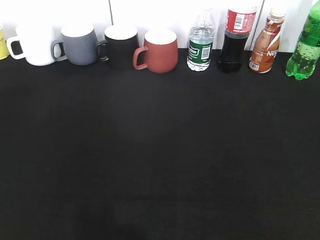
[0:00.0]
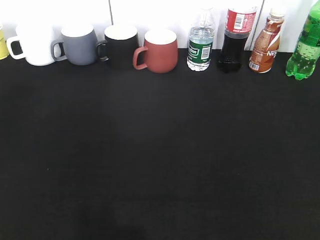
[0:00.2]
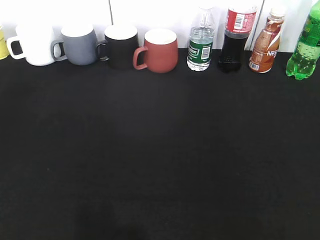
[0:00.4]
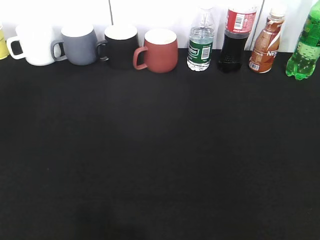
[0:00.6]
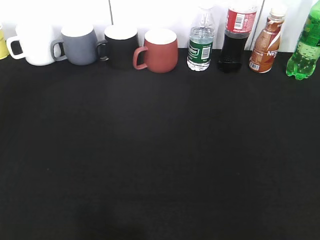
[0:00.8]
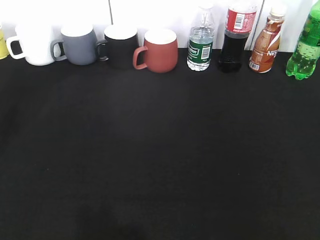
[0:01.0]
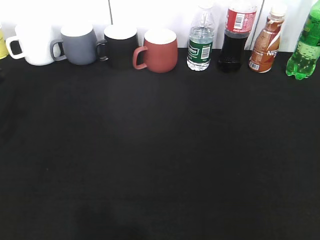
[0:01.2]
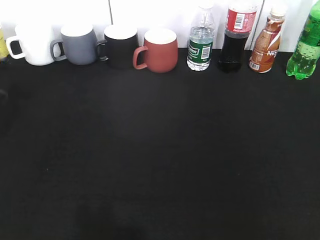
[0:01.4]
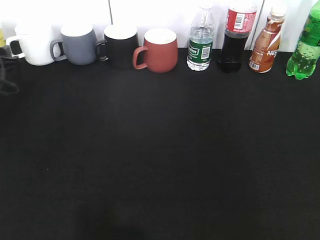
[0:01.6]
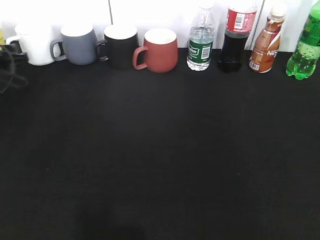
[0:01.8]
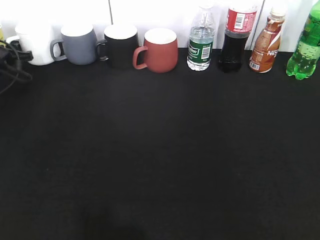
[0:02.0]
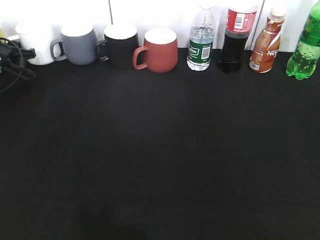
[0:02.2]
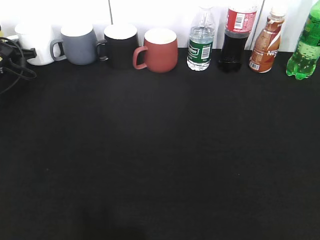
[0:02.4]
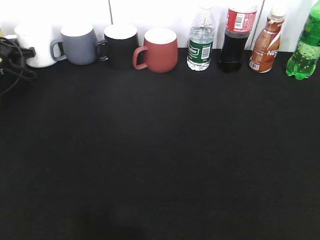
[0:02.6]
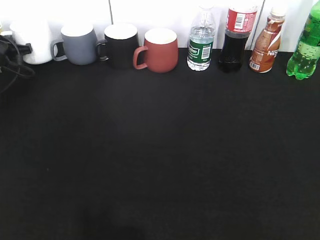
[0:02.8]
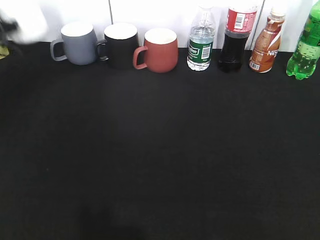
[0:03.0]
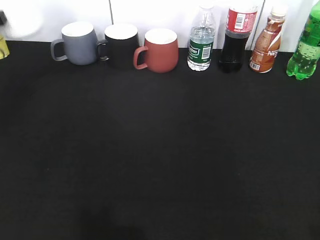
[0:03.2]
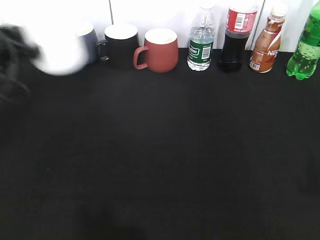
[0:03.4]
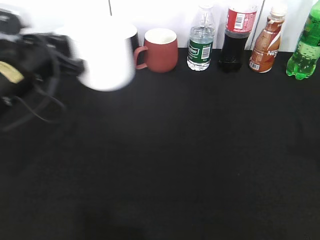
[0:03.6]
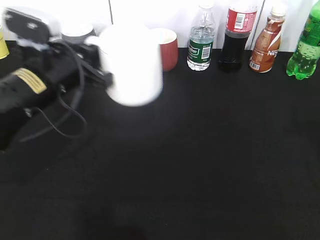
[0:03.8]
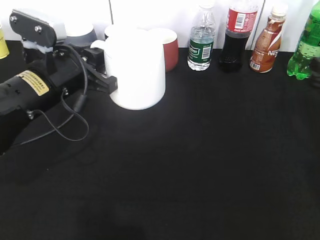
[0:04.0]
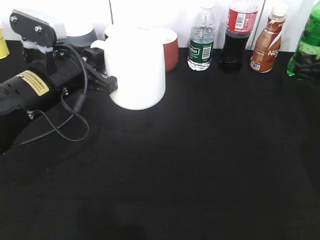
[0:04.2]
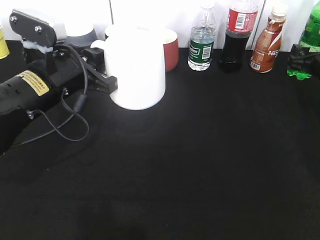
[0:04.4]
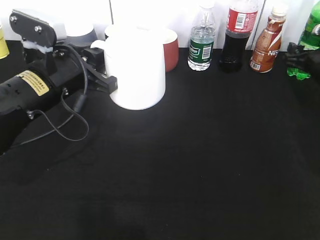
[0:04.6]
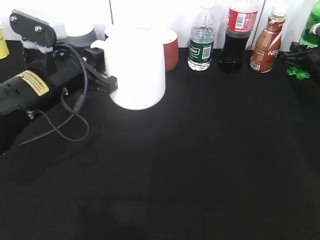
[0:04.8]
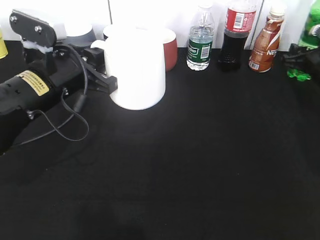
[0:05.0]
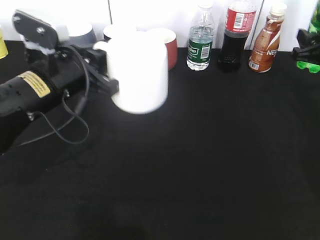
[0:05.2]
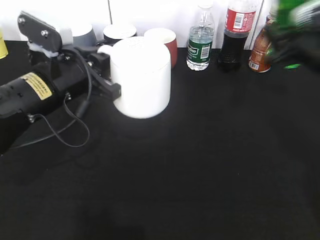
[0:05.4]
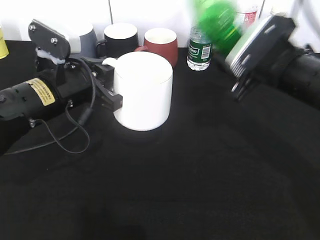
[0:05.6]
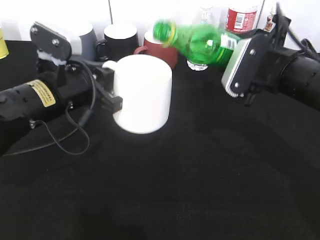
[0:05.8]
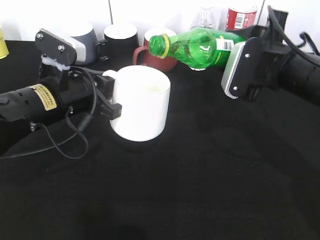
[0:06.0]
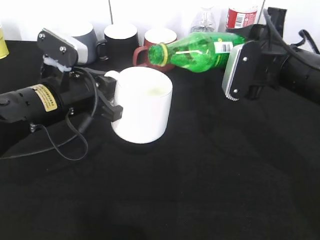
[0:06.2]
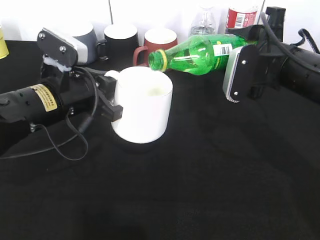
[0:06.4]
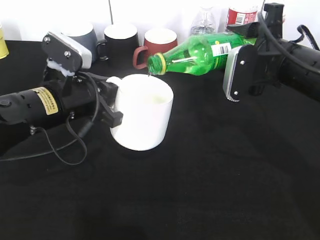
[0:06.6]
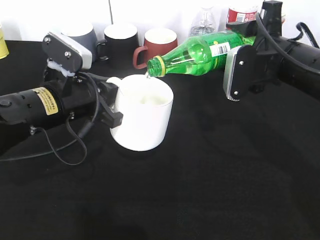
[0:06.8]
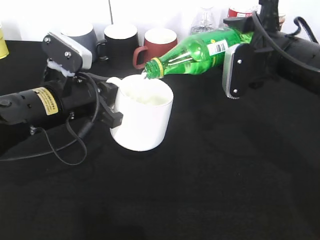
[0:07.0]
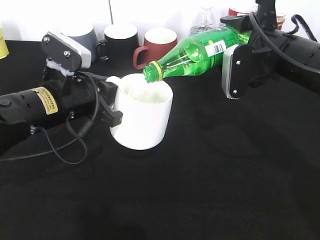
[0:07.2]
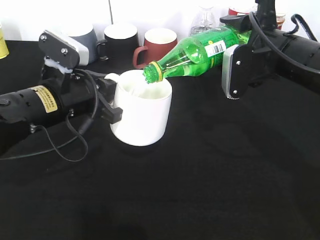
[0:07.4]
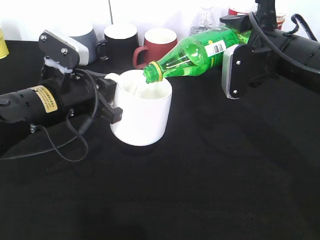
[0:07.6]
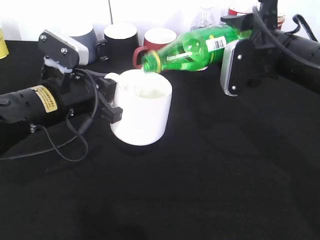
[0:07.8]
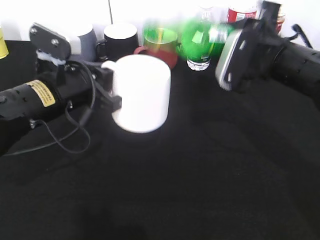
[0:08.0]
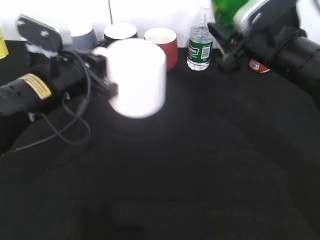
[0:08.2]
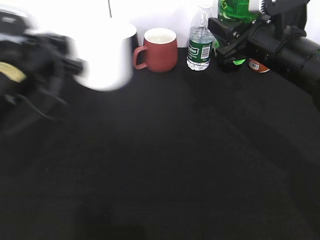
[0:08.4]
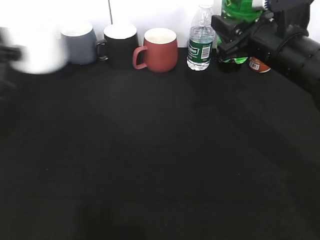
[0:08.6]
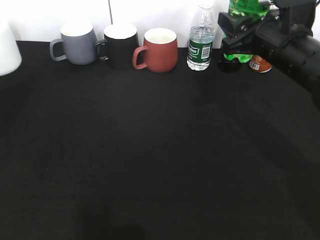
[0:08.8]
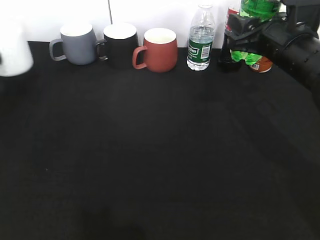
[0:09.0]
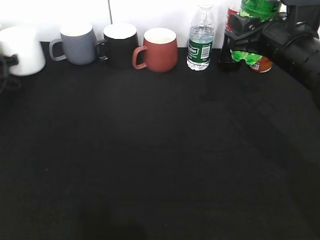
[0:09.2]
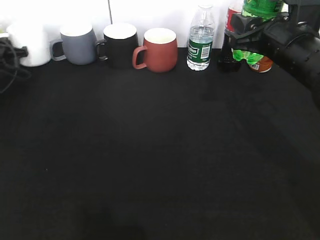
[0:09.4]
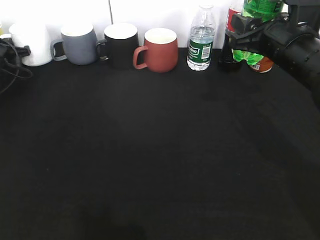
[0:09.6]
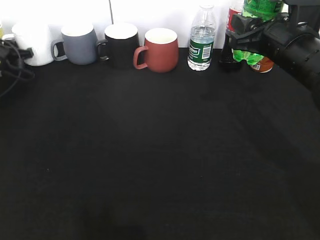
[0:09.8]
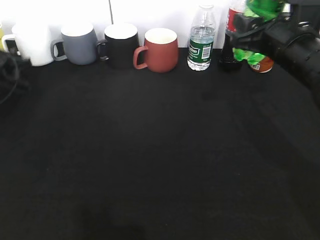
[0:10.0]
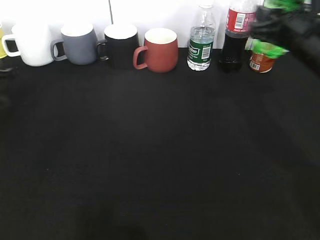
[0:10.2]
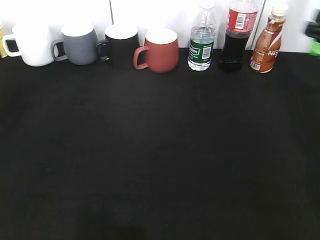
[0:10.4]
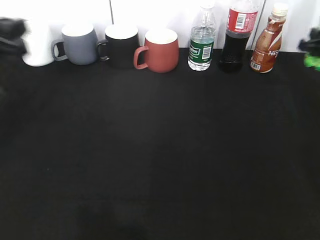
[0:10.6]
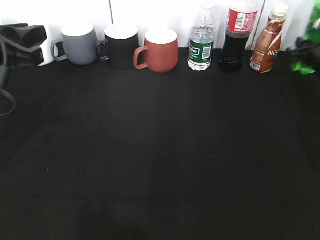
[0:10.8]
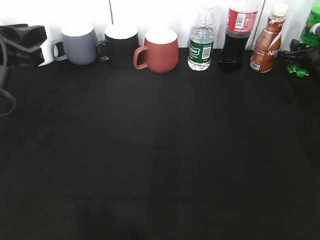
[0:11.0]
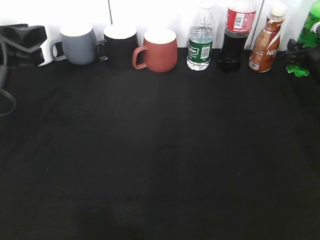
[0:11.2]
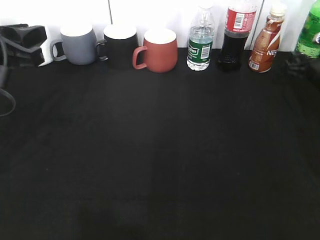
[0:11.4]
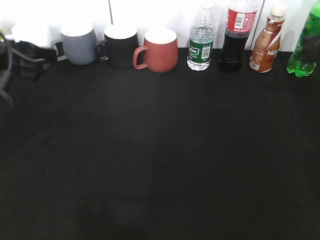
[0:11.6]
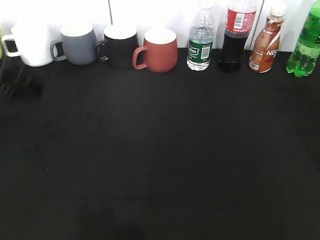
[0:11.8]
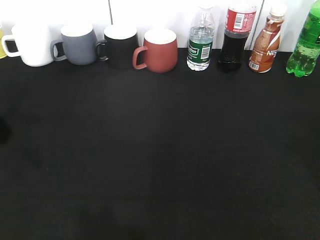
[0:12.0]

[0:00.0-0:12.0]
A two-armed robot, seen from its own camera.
Step, 2.6 to 3.8 s: Lift the white cup with left gripper.
Step, 5.0 to 7.8 s: Pour the sprite from bottle to cup with right gripper.
Step, 8.0 to 11.4 s: Place the sprite bottle on the table with right gripper.
0.0 to 1.6 s: The left gripper heads forward, covering approximately 40 cm.
1.6 to 3.0 s: The left gripper travels forward and upward by about 10 cm, and closes its fingers.
3.0 to 4.4 s: The left gripper goes roughly 25 cm to the right and backward. The right gripper is displaced forward by some 40 cm.
4.4 to 6.0 s: The right gripper heads to the left, backward and upward, covering about 20 cm, and closes up.
6.0 to 7.6 s: The grippers move only a little.
7.6 to 9.0 s: The left gripper is displaced to the left and forward by approximately 25 cm.
9.0 to 10.4 s: The right gripper goes some 10 cm to the right. Meanwhile the left gripper shifts approximately 15 cm backward, upward and to the right, and opens its fingers.
10.4 to 12.0 s: The left gripper travels backward, upward and to the right by about 10 cm, and opens, while the right gripper moves backward and upward, some 20 cm, and opens.

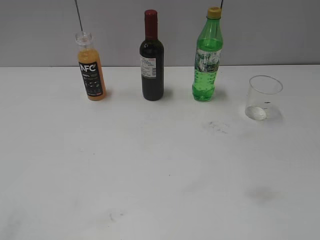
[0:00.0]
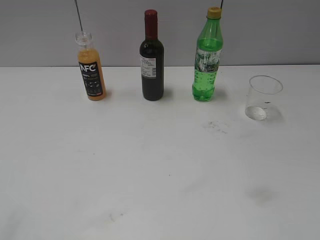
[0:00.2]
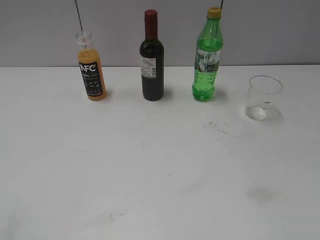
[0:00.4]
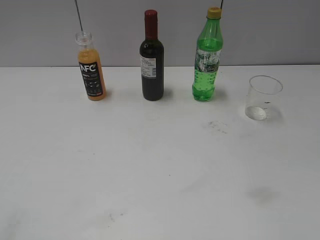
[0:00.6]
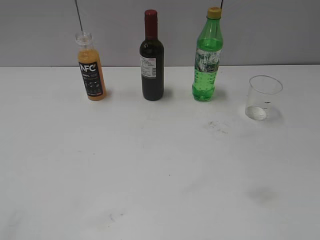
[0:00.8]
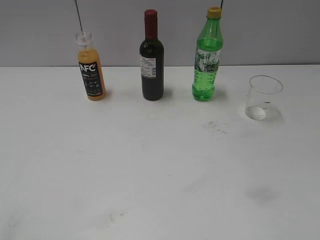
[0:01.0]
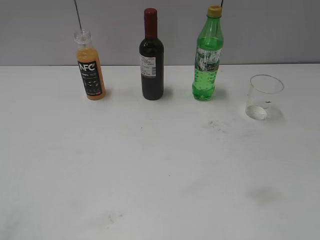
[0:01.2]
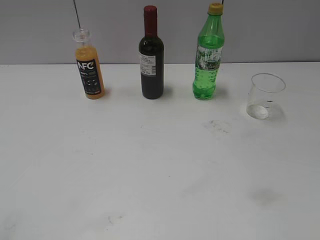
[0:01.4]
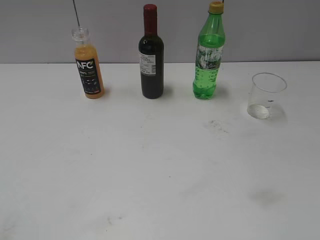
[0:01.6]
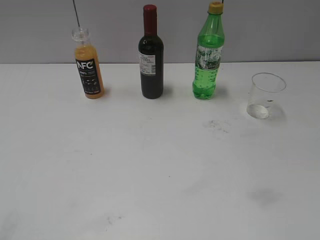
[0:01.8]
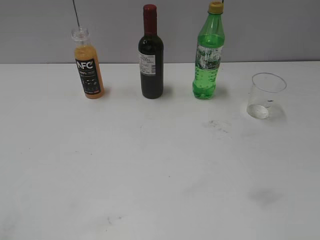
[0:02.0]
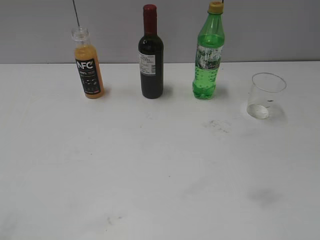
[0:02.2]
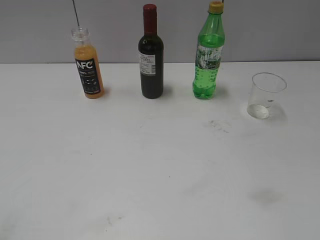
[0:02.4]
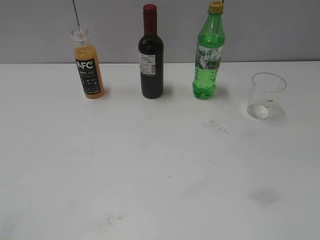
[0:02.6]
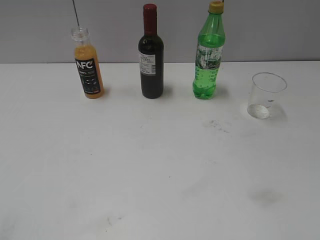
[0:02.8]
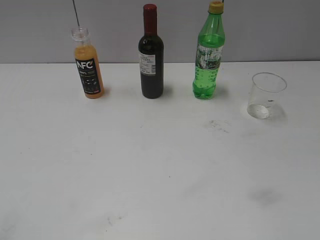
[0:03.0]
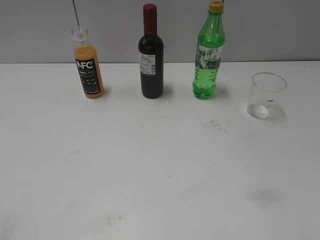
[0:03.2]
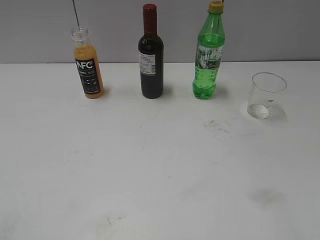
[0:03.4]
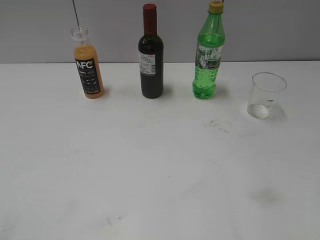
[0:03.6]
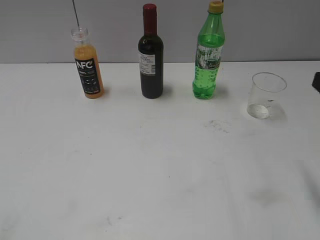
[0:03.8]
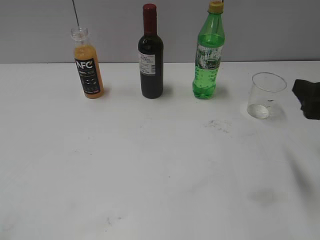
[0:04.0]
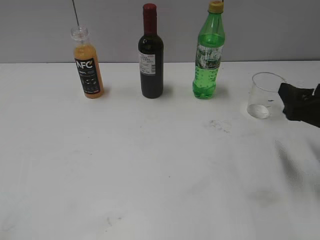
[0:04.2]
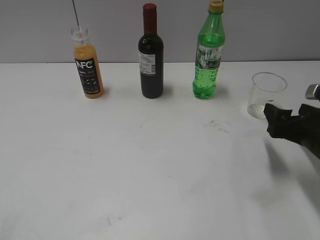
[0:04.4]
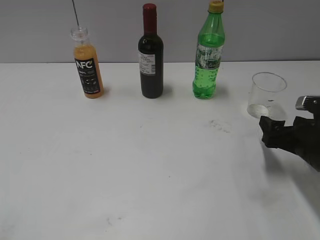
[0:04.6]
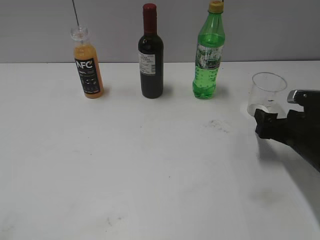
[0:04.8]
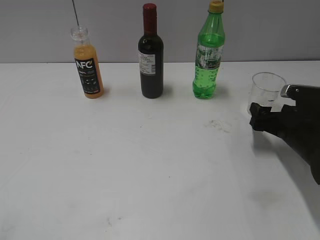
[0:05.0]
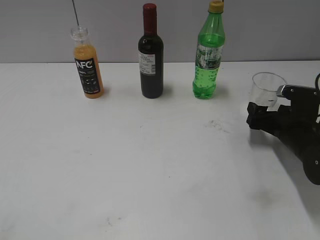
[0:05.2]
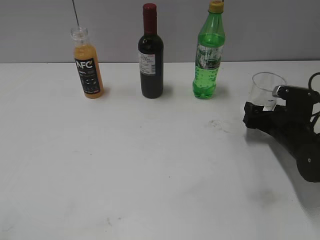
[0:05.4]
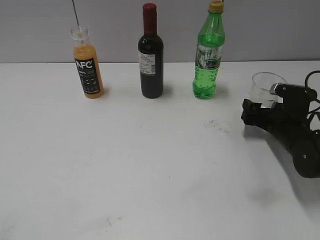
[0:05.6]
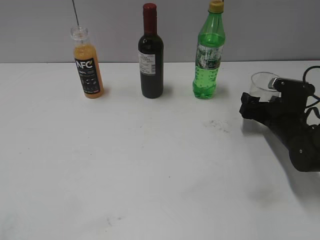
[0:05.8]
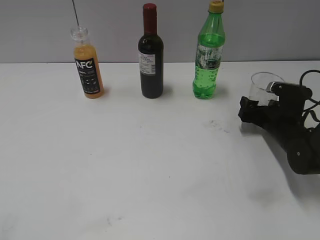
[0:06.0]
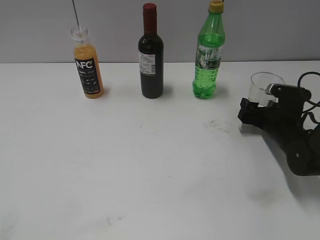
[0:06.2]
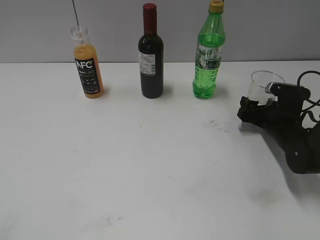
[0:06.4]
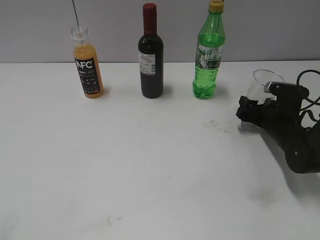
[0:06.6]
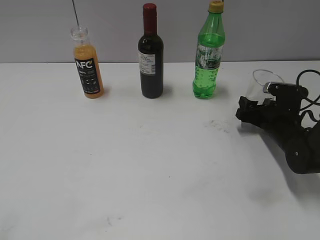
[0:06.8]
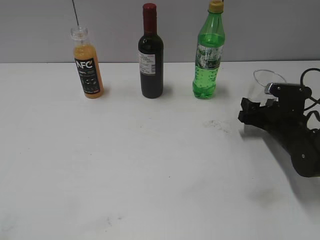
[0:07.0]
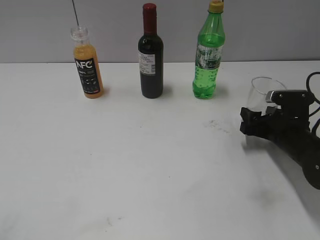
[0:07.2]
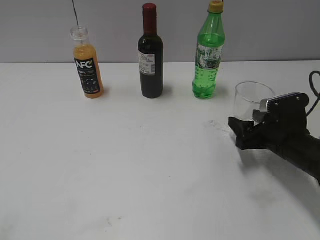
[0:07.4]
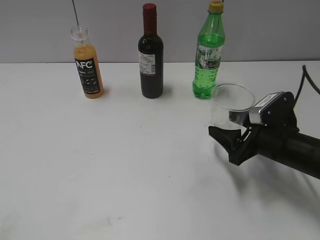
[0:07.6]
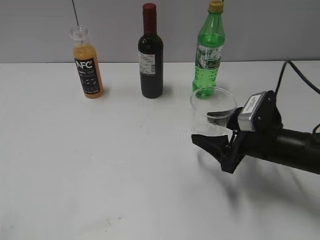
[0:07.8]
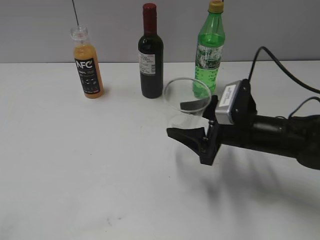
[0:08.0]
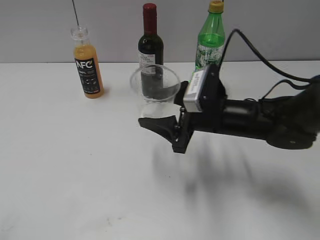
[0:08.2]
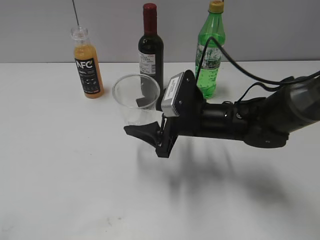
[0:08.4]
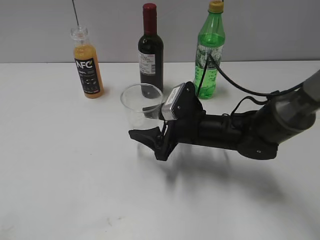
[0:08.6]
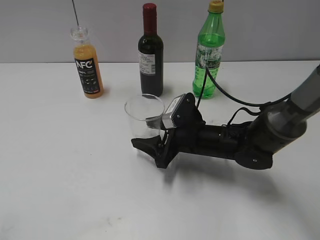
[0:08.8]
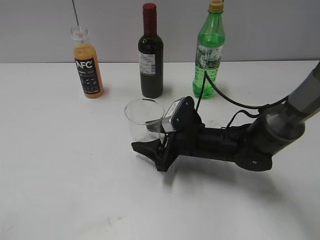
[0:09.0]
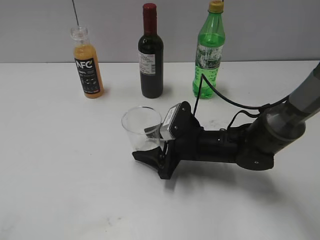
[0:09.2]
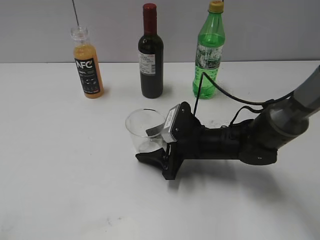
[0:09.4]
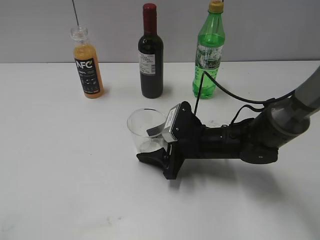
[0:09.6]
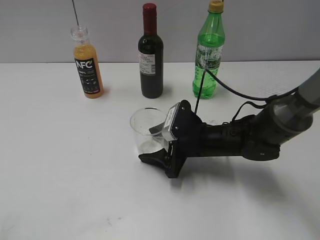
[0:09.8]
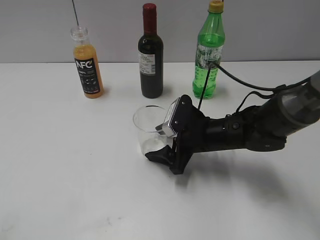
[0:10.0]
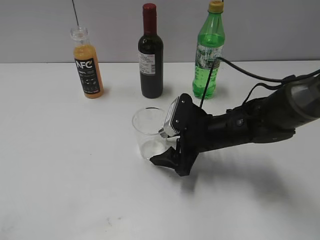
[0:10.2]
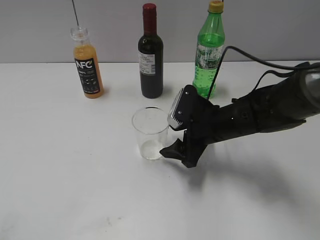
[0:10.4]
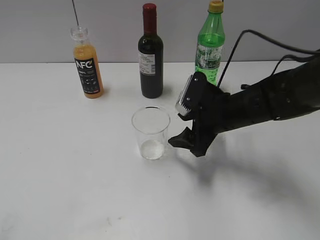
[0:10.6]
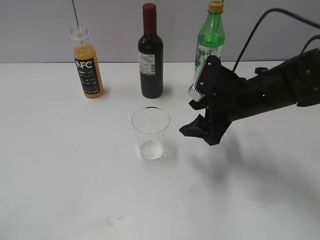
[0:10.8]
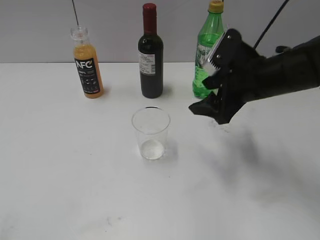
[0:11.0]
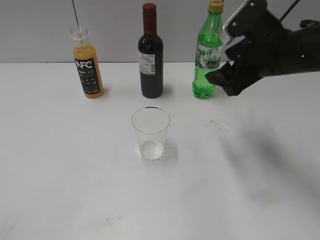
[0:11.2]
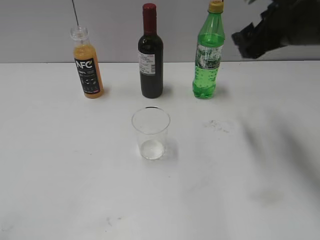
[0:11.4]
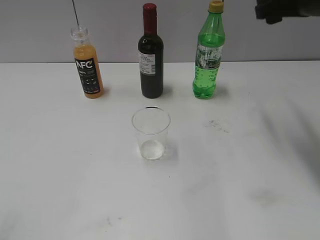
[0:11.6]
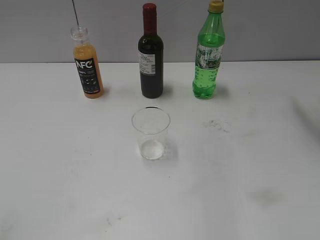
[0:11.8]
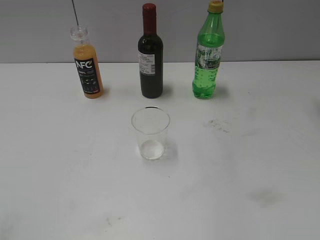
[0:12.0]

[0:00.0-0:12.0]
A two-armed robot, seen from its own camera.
Step, 3.8 to 6.6 s: Grasp the transparent cup with right gripper.
Step, 6.8 to 10.2 s: Place the transparent cup on the table with right gripper.
3.0 to 4.4 s: The right gripper is displaced forward and downward by some 30 cm.
4.4 to 6.0 s: The right gripper goes approximately 15 cm forward and downward.
6.0 to 7.6 s: The right gripper goes roughly 10 cm backward, and closes.
7.6 to 9.0 s: The right gripper shifts about 15 cm to the left.
9.0 to 10.4 s: The right gripper ends up approximately 5 cm from where it was, and opens.
10.4 to 12.0 s: The right gripper is displaced upward and to the right by roughly 30 cm.
